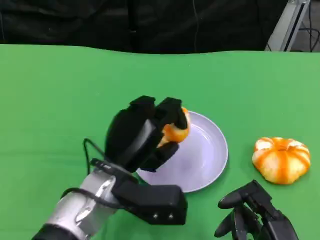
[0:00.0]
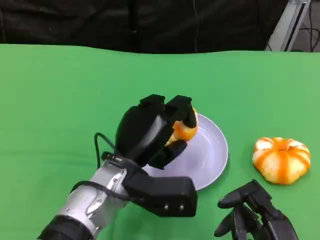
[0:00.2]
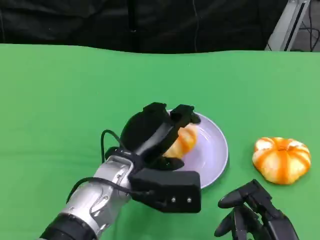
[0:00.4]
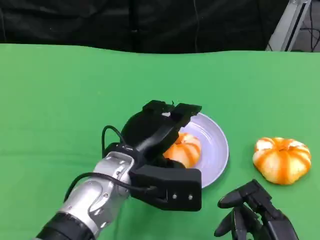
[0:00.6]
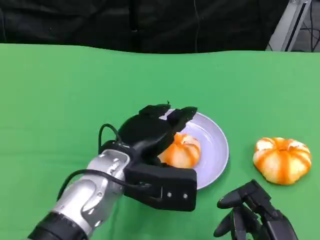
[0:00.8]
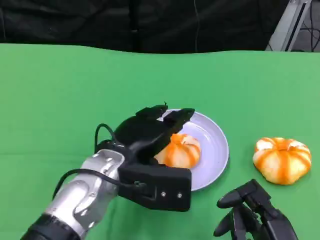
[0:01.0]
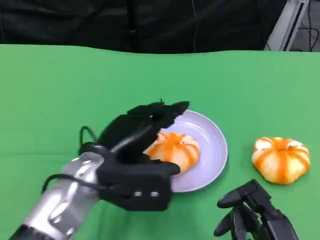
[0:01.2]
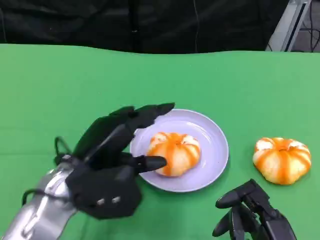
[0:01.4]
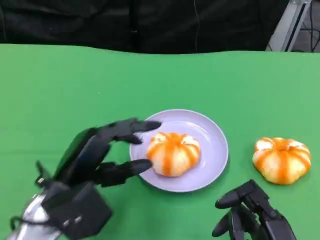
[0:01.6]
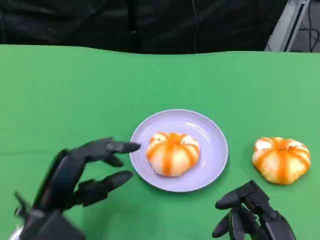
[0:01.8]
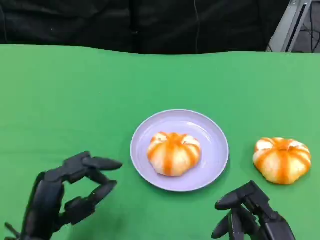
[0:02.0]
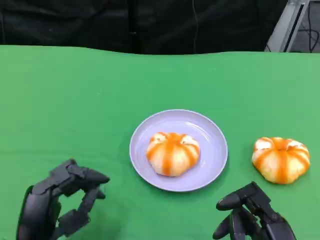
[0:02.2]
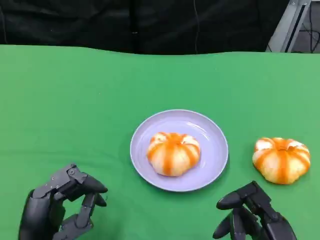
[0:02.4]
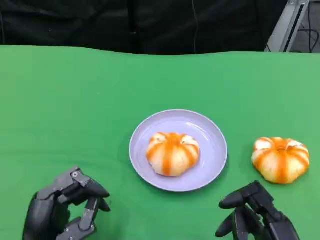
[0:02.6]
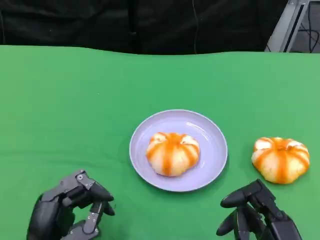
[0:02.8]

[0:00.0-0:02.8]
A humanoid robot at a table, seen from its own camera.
Task of the whole recording: Grasp the bread from the table and place it into the plate.
0:00.0 to 0:01.4: The left hand travels to the left by about 5 cm.
0:01.4 to 0:02.8: The left hand heads backward and downward, covering some 10 cm.

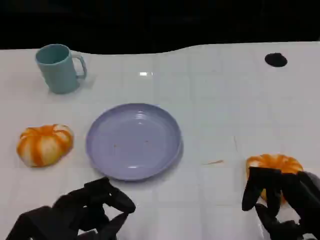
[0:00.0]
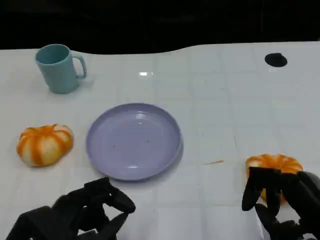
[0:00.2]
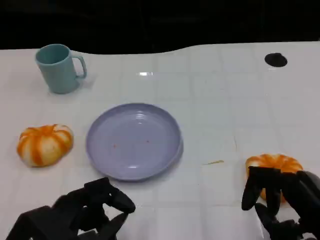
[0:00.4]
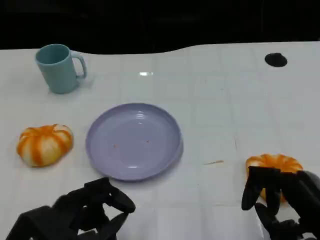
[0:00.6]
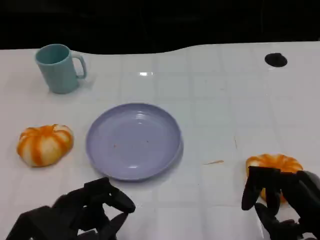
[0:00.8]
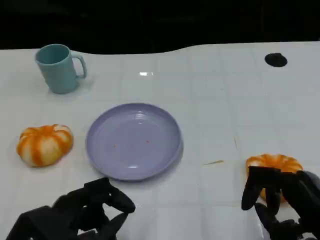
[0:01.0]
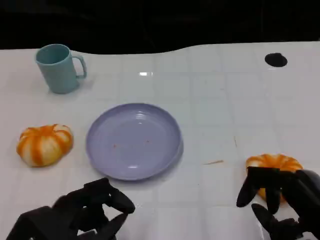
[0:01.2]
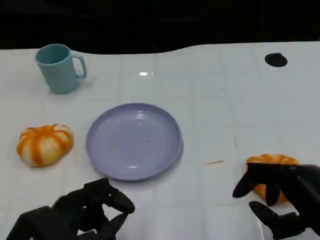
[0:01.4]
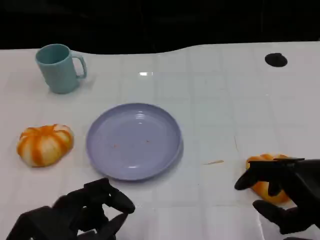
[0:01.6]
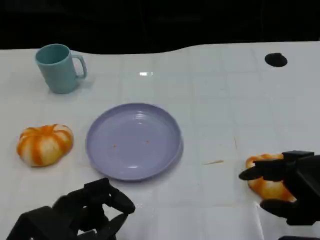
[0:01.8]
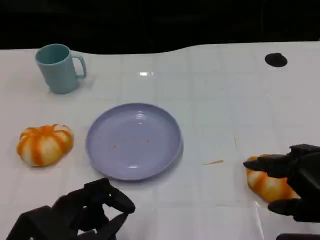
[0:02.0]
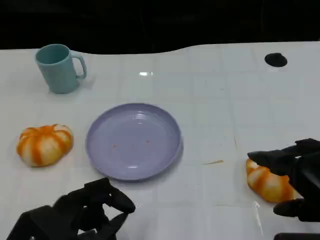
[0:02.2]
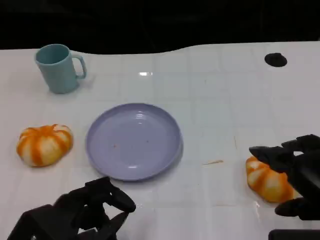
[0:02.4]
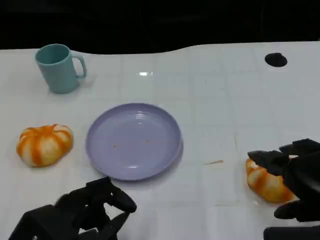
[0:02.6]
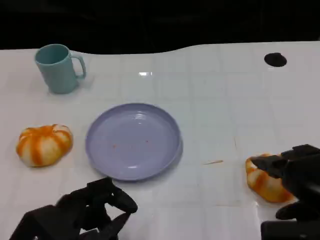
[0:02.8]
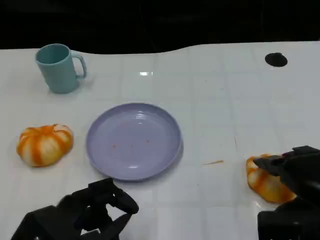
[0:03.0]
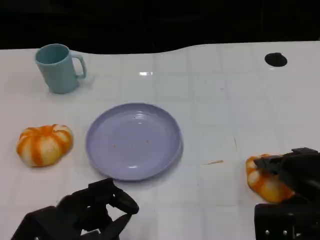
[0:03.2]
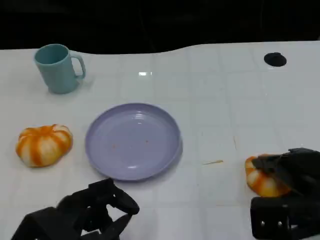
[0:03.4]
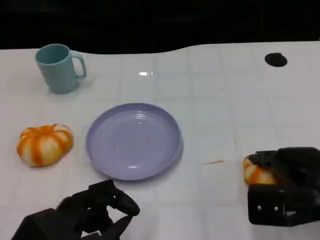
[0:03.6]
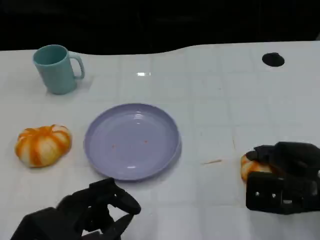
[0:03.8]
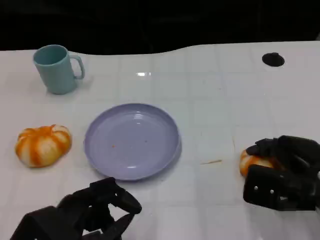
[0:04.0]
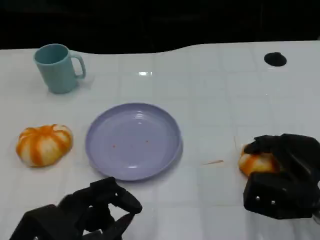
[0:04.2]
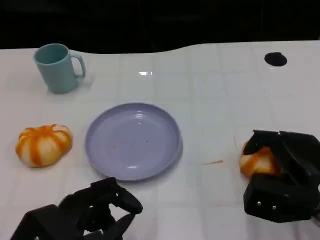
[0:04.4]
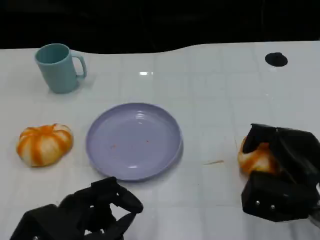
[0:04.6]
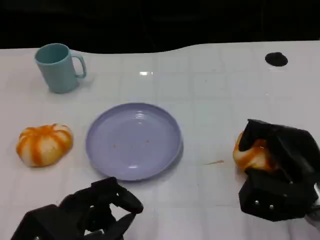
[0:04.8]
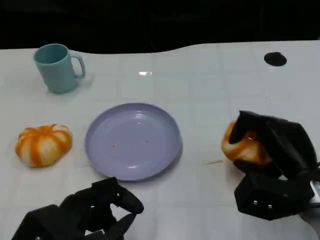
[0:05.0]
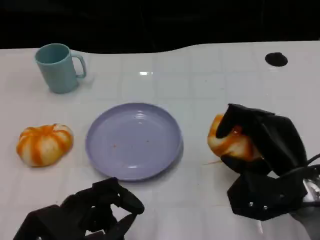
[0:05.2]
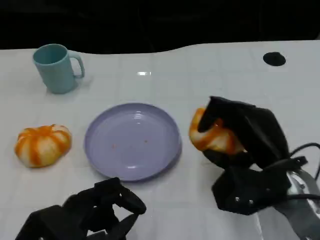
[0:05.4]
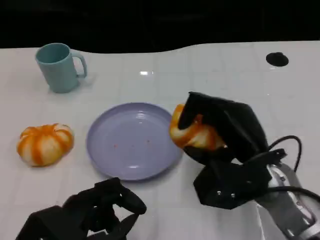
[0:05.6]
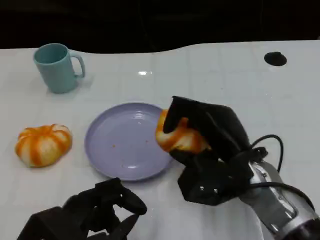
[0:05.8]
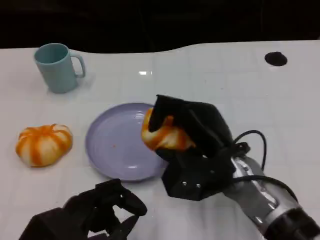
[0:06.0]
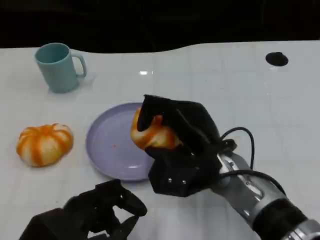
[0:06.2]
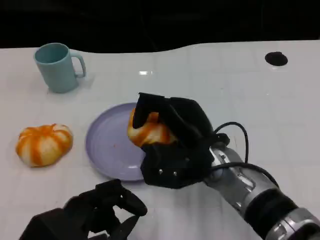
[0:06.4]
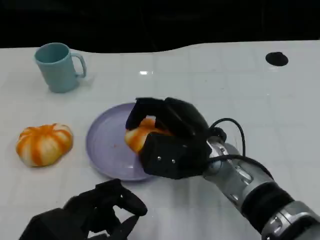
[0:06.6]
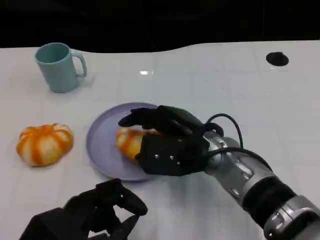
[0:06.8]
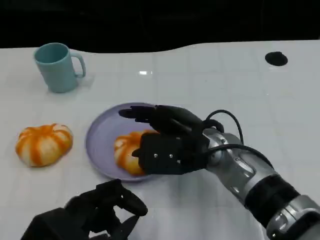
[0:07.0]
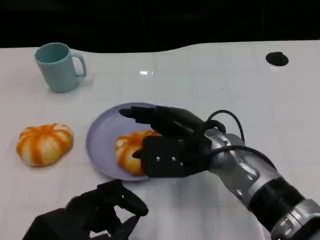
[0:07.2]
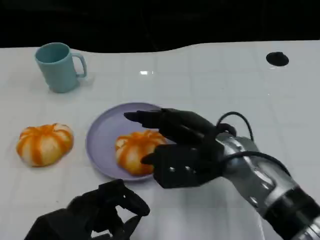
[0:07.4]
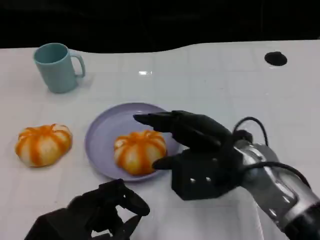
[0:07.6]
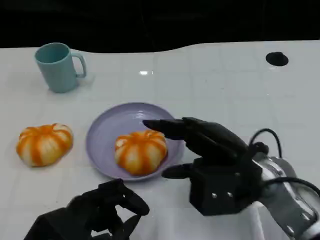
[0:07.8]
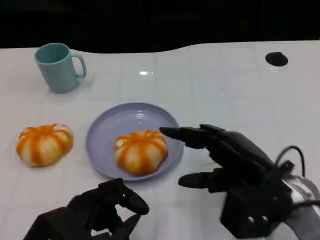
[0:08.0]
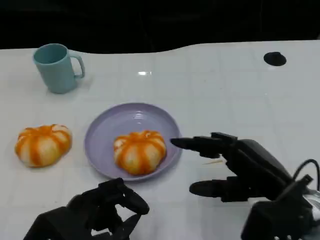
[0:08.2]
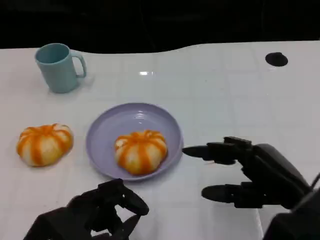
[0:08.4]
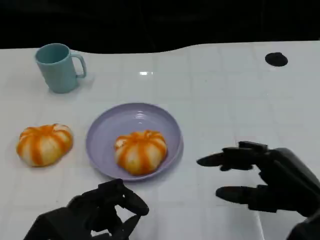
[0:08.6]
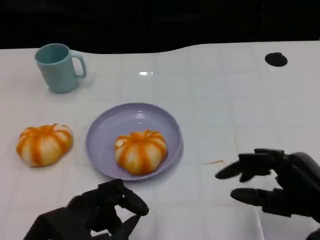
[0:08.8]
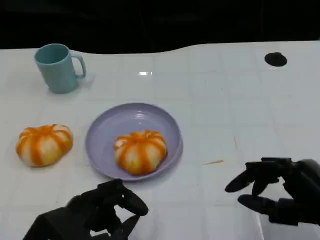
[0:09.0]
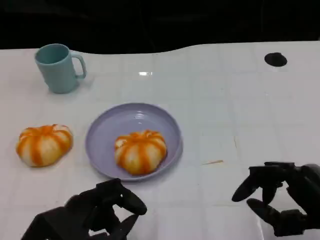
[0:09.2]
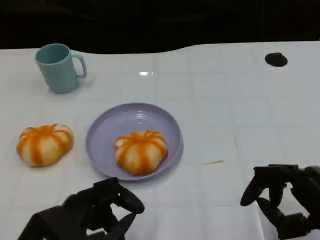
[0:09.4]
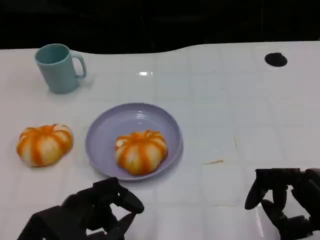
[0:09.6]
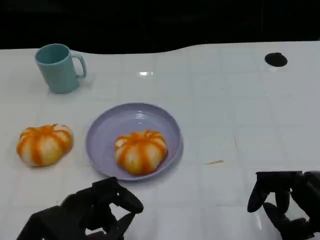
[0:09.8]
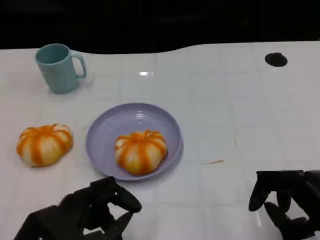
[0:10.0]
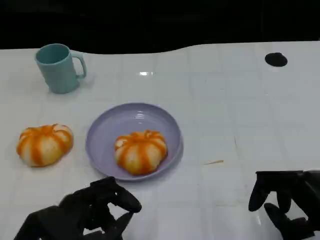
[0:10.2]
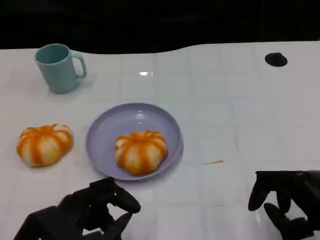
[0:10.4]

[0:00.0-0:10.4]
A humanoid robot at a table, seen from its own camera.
Task of the whole recording: Grasp the bread from the table and place it into the plate.
0:00.0 to 0:01.4: There are only small adjustments of the hands.
0:03.0 to 0:04.4: The right hand heads downward, covering roughly 5 cm.
0:04.4 to 0:06.0: The right hand shifts approximately 15 cm to the left.
0:07.4 to 0:09.0: The right hand goes roughly 20 cm to the right and backward.
0:09.0 to 0:10.4: There are only small adjustments of the hands.

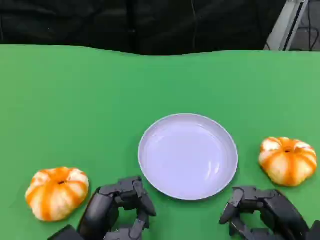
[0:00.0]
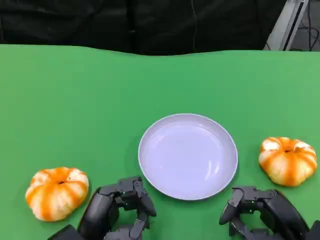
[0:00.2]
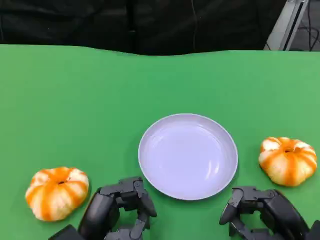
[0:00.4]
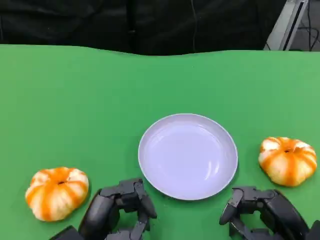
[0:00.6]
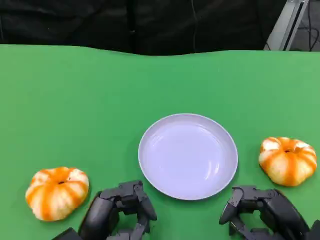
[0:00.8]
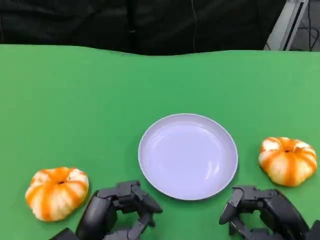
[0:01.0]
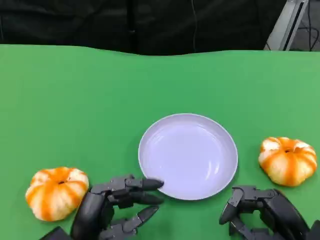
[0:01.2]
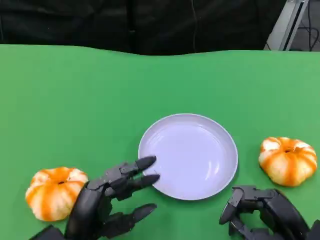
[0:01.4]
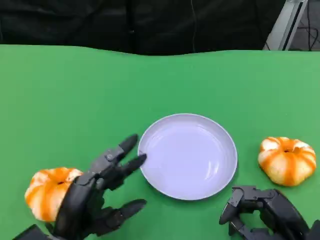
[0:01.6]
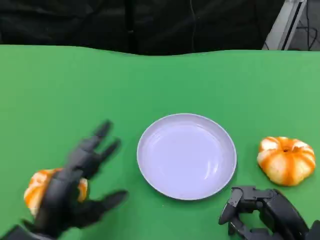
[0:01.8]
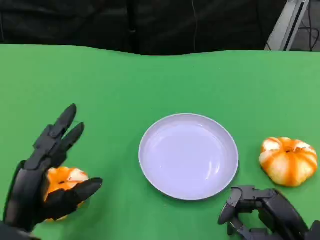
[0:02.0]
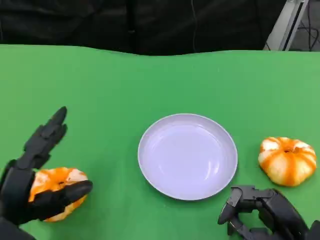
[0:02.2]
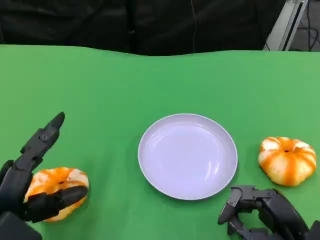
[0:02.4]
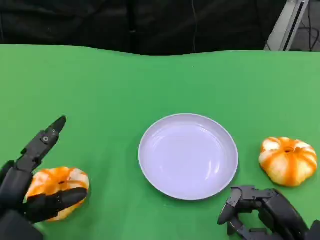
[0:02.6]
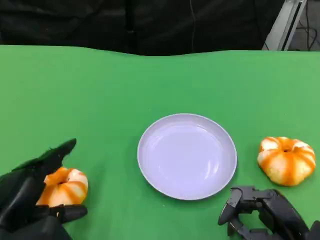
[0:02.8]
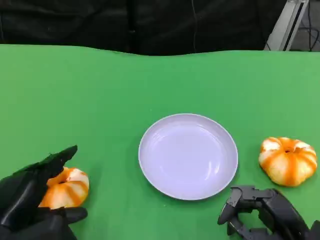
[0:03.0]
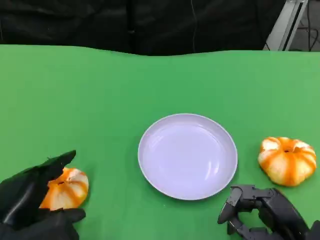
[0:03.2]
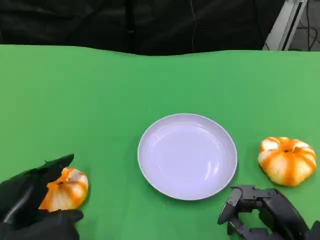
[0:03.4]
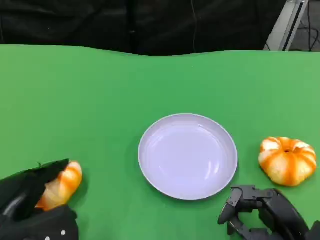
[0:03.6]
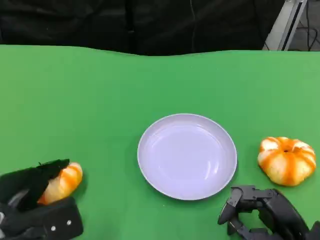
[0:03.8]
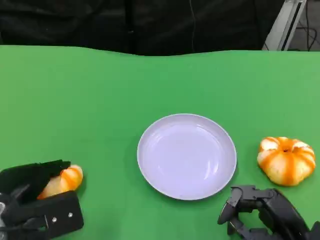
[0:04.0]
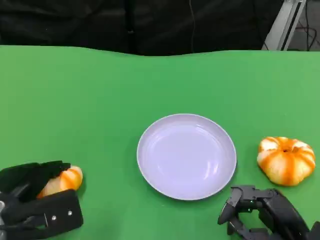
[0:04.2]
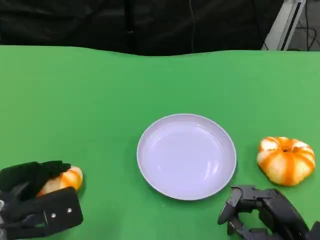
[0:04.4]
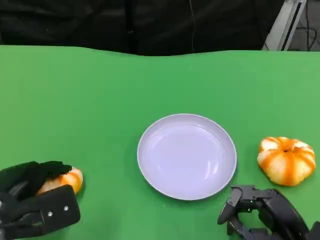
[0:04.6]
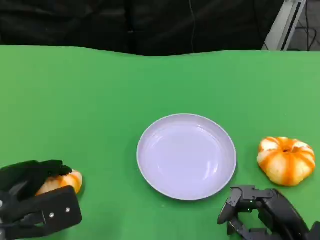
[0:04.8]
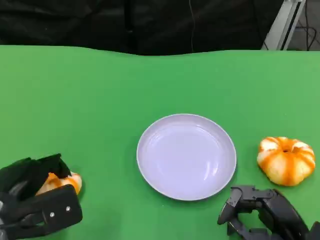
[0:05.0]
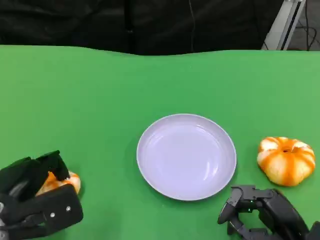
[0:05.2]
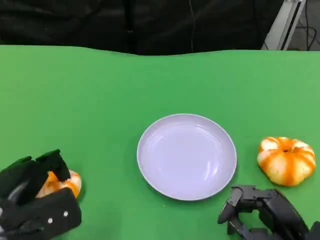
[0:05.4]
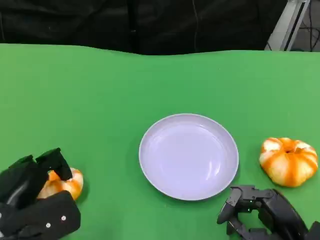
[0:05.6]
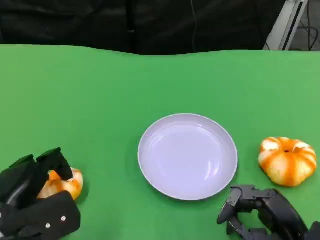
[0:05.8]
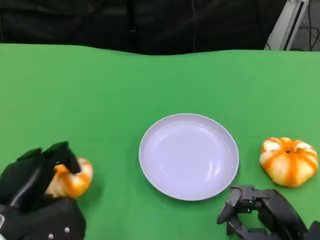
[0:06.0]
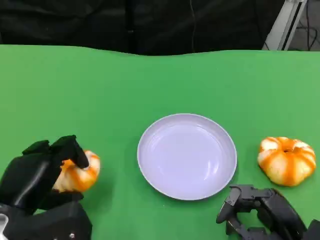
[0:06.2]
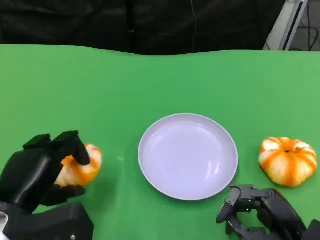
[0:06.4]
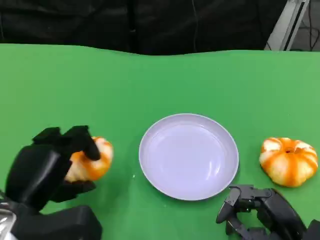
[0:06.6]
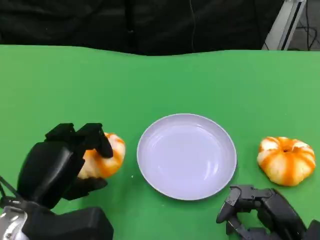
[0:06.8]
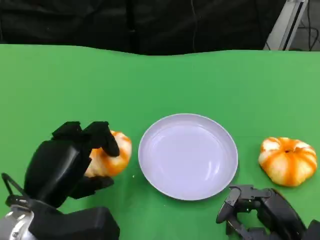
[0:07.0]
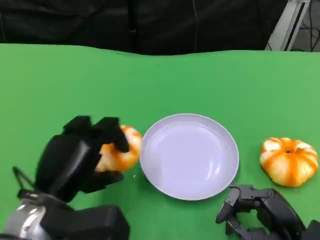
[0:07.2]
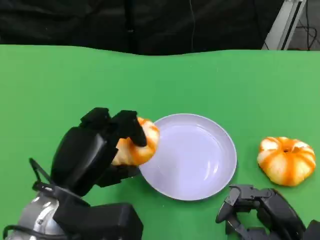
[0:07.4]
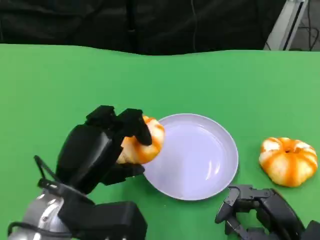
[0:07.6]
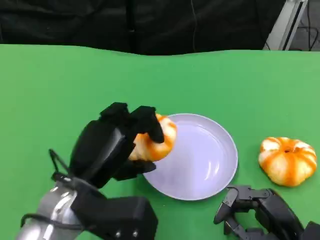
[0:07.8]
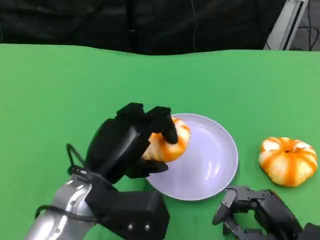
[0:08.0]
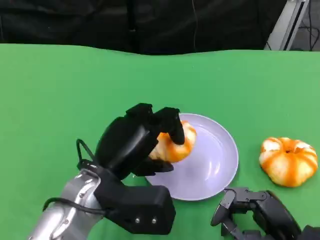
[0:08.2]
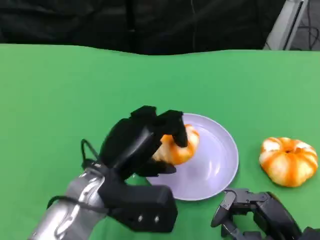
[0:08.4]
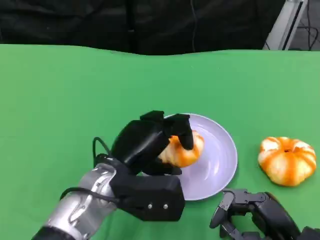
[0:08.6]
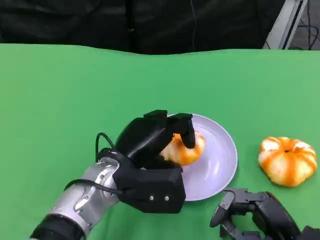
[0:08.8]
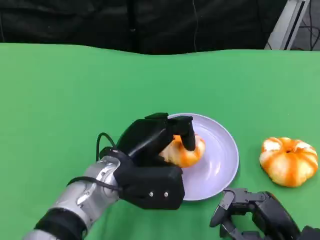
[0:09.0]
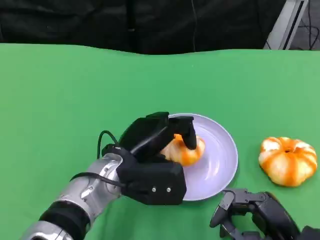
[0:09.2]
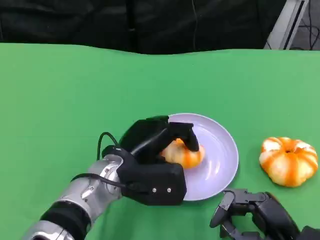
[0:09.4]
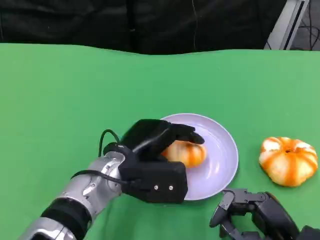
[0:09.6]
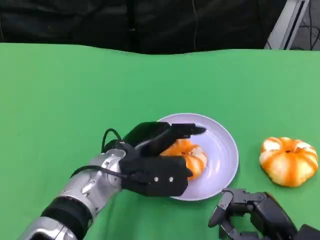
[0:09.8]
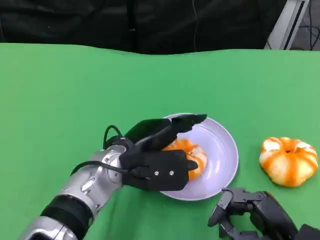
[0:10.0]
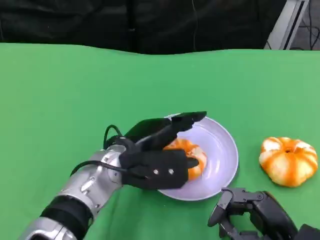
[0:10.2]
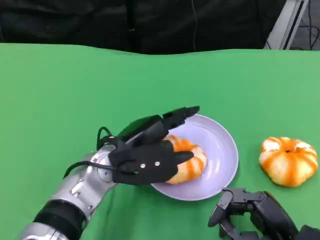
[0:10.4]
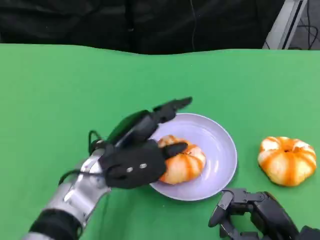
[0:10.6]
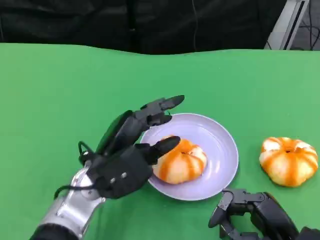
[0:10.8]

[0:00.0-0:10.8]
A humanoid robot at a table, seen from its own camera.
Task of the whole recording: Grasp the bread from the table and place it into the plate.
0:00.0 to 0:01.6: There are only small adjustments of the hands.
0:01.6 to 0:03.0: The left hand shifts roughly 5 cm to the left.
0:06.2 to 0:07.8: The left hand shifts about 10 cm to the right.
0:07.8 to 0:09.2: The left hand moves forward and to the right, roughly 5 cm.
